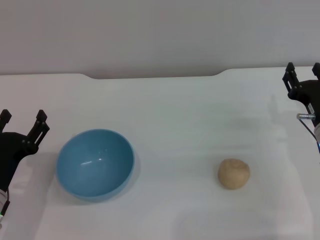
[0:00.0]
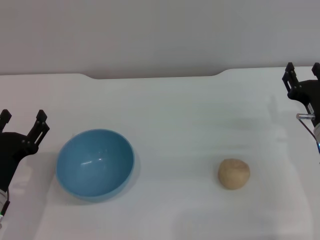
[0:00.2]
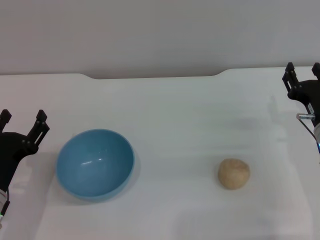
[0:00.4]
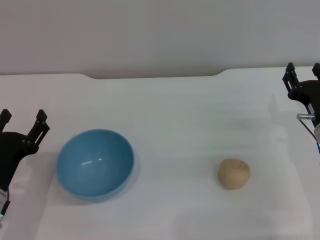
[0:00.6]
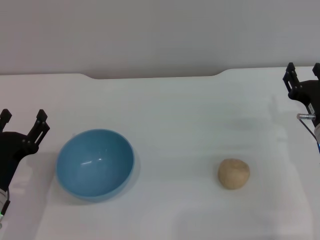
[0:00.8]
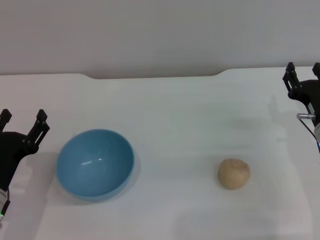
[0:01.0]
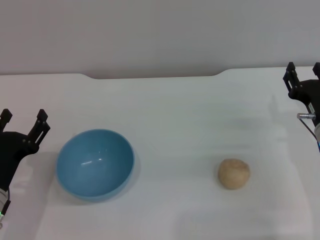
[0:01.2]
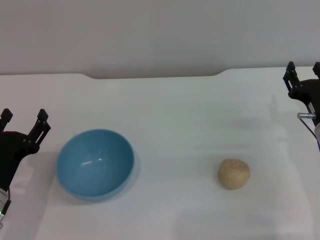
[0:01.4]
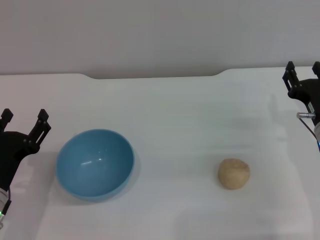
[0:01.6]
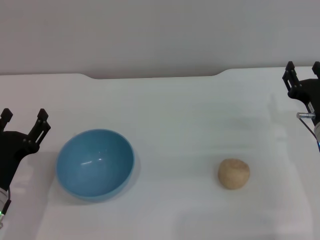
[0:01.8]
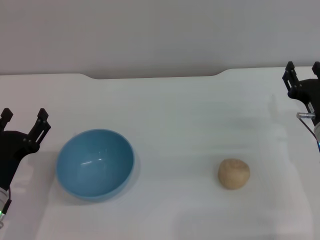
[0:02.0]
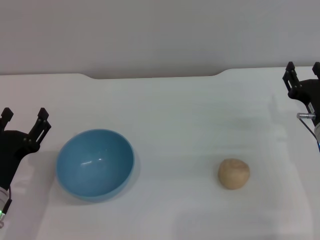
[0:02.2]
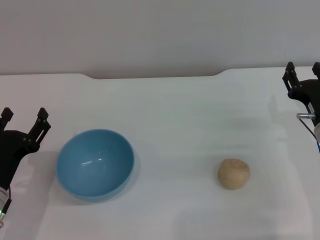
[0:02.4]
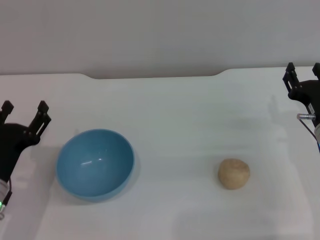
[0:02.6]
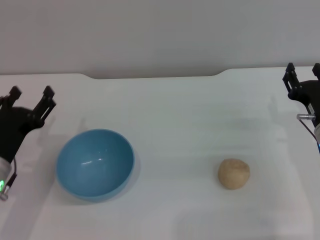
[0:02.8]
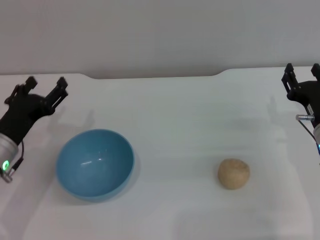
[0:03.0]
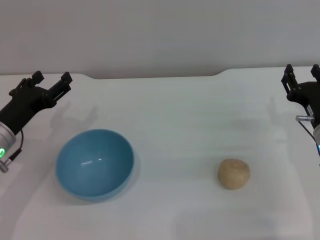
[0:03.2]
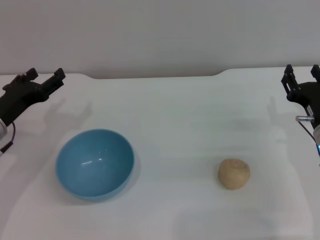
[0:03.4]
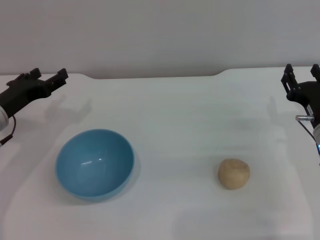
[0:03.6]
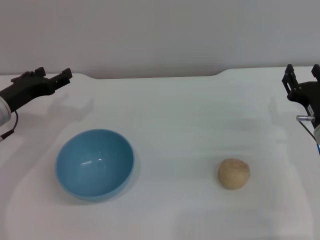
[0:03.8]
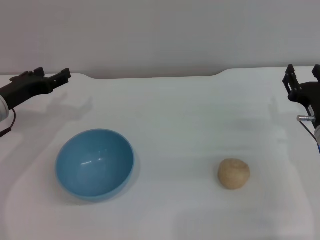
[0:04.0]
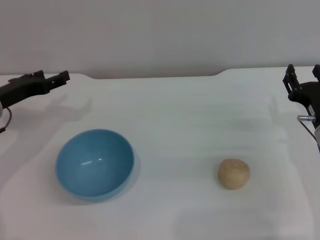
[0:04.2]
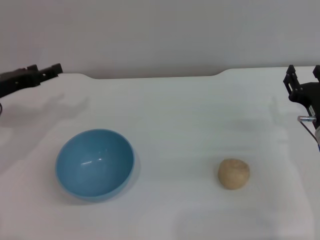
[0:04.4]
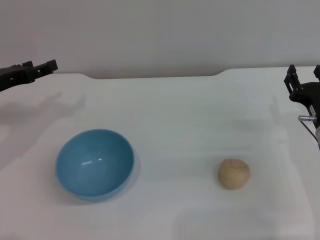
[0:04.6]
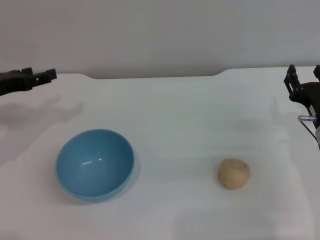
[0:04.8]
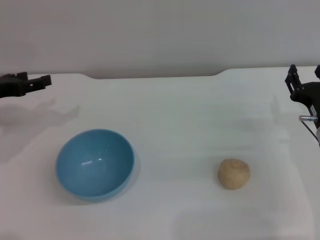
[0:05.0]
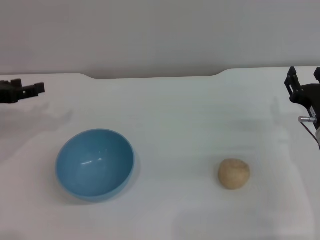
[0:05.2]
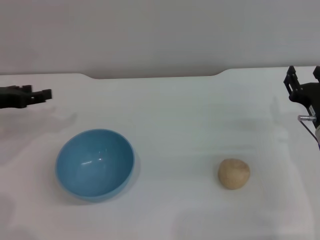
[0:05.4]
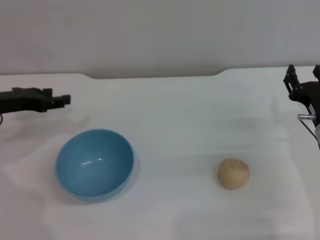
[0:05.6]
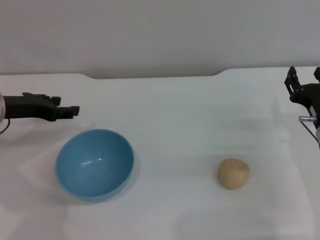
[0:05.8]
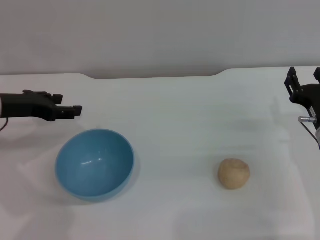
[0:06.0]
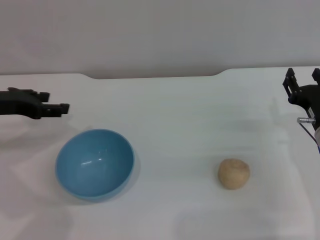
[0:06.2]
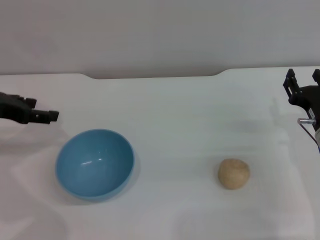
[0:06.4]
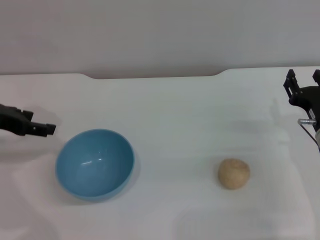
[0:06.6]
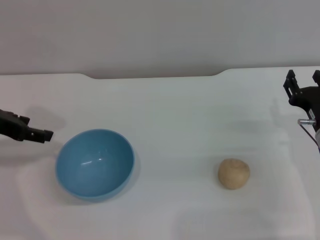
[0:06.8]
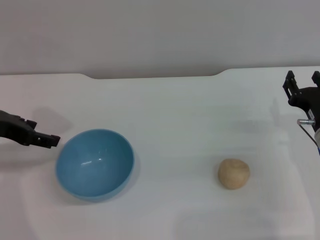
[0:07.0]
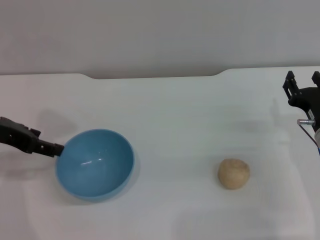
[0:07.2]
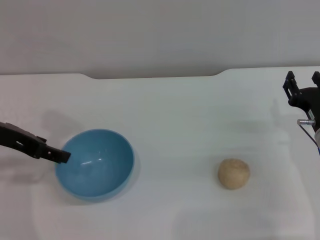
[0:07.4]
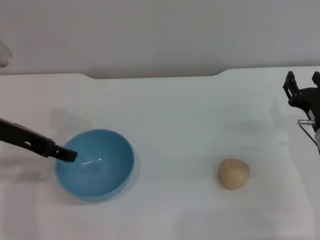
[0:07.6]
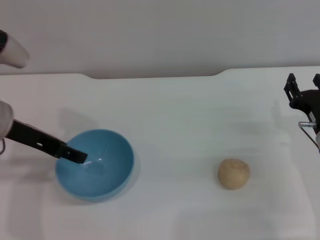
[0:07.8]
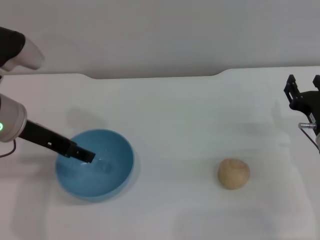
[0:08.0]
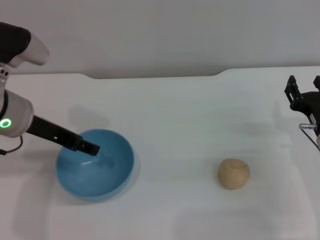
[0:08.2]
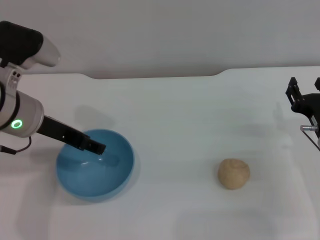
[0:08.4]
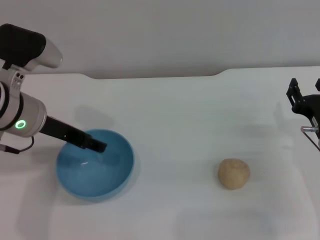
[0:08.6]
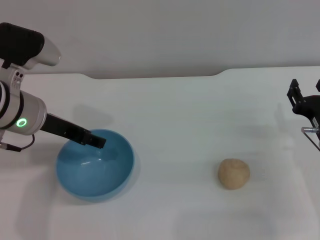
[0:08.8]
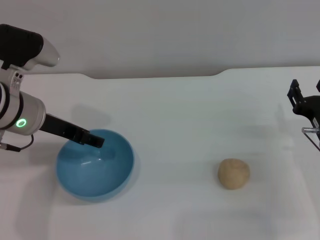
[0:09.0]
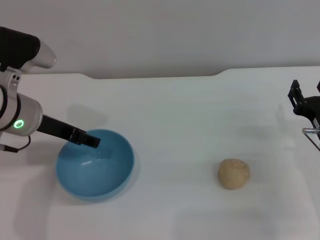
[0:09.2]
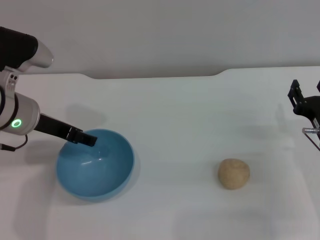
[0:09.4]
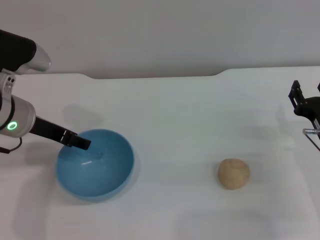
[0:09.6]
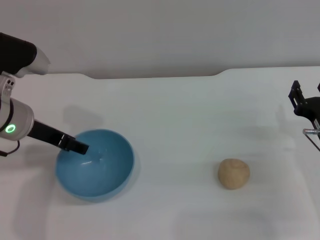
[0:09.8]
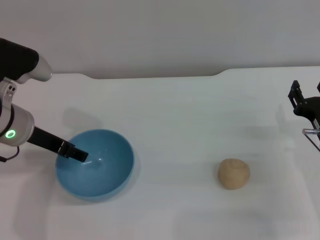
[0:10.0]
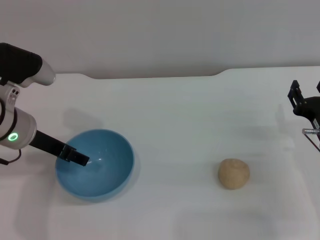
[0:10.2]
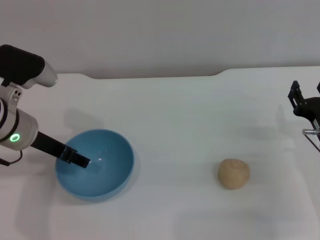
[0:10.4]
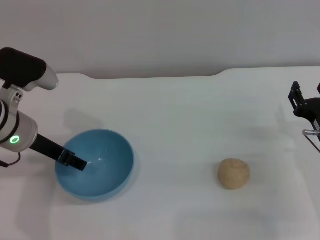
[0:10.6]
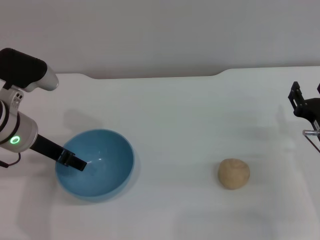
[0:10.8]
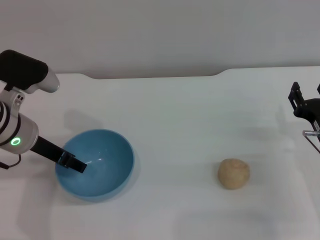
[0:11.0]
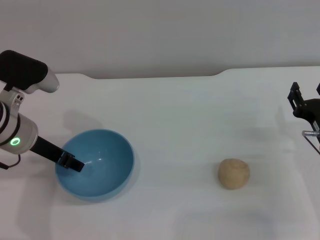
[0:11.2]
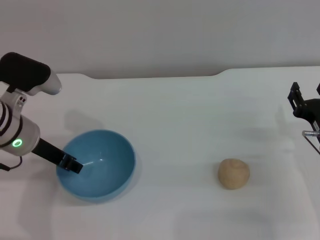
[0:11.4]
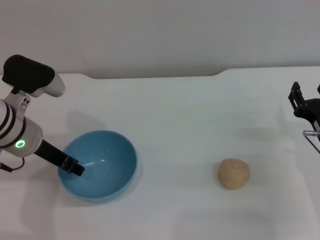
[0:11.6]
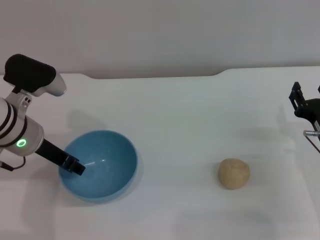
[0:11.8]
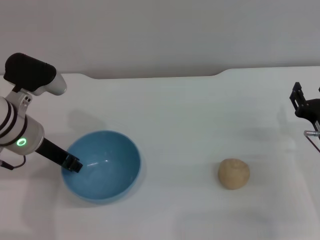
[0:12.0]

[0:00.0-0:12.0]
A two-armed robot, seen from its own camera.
Task of the whole recording: put the egg yolk pastry into the blue bowl and pour it out repeatedly.
0:00.0 to 0:01.6: Both grippers stay about where they are.
0:01.6 to 0:03.0: The left gripper is displaced forward by some 5 cm.
0:03.0 to 0:04.4: The left gripper heads forward, upward and to the left, covering roughly 10 cm.
0:06.0 to 0:07.6: The left gripper heads upward, covering approximately 5 cm.
0:07.6 to 0:09.0: The left gripper is displaced to the right by roughly 5 cm.
0:09.0 to 0:10.4: The grippers make only small movements.
0:10.4 to 0:12.0: The left gripper closes its fingers.

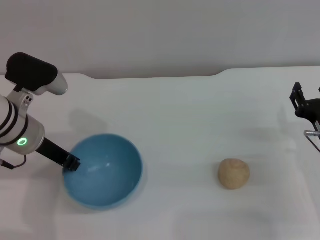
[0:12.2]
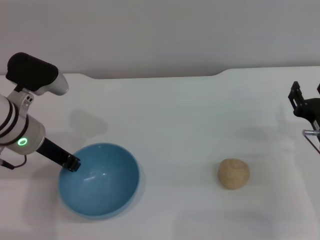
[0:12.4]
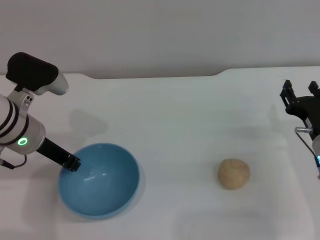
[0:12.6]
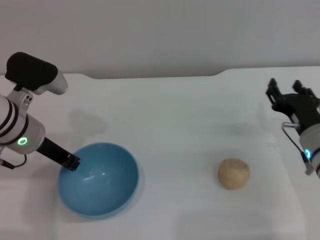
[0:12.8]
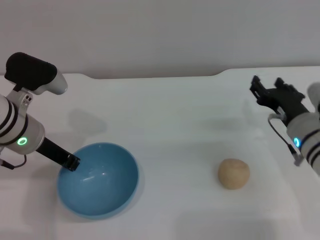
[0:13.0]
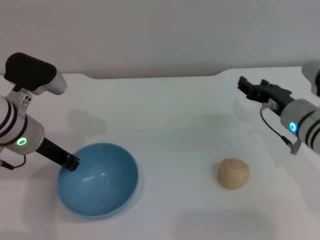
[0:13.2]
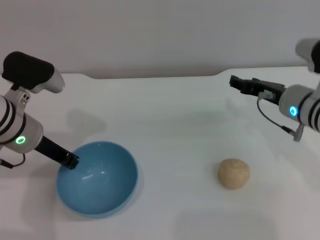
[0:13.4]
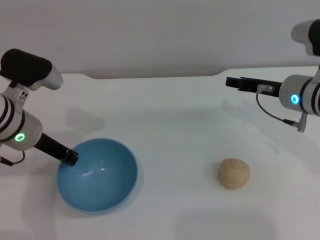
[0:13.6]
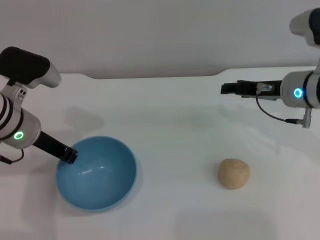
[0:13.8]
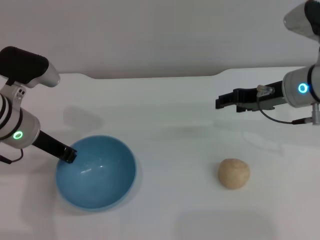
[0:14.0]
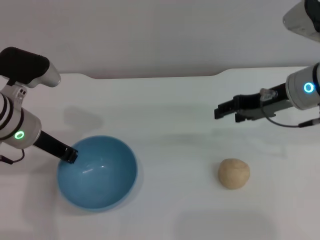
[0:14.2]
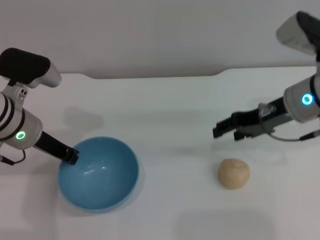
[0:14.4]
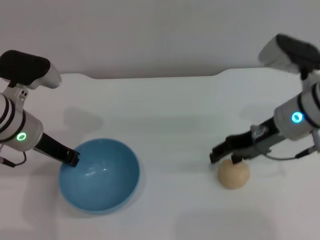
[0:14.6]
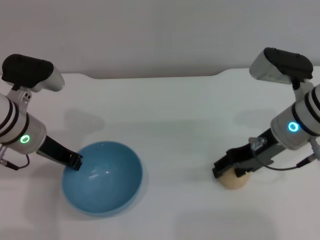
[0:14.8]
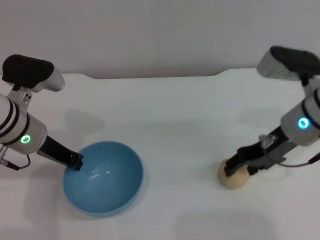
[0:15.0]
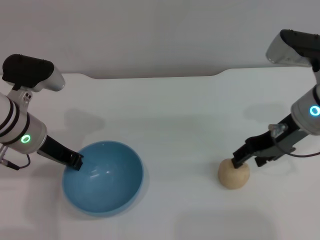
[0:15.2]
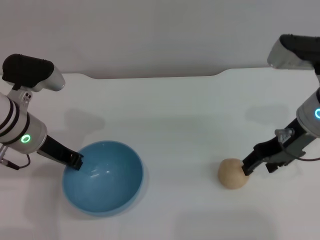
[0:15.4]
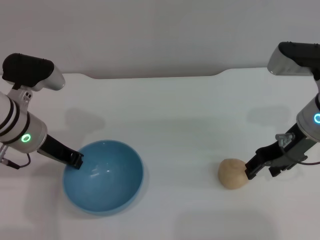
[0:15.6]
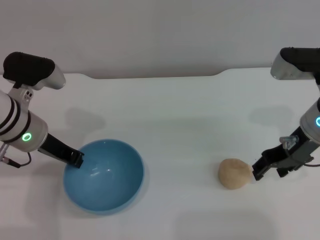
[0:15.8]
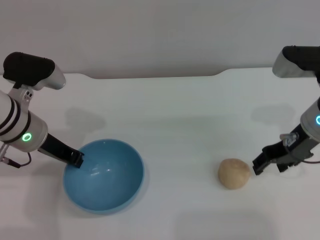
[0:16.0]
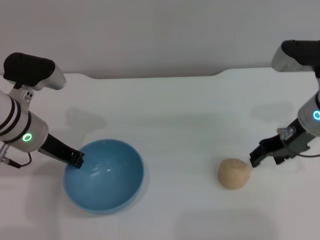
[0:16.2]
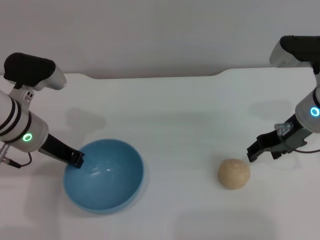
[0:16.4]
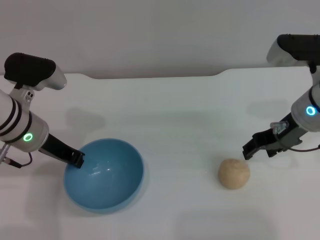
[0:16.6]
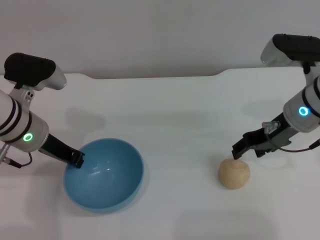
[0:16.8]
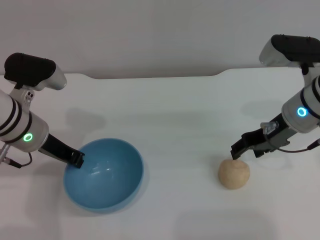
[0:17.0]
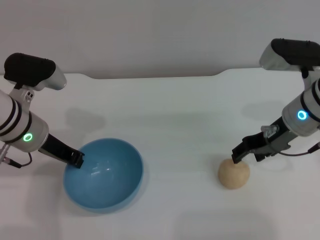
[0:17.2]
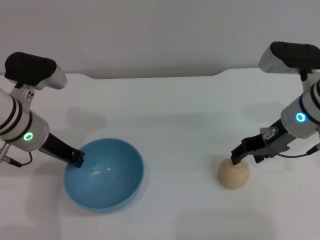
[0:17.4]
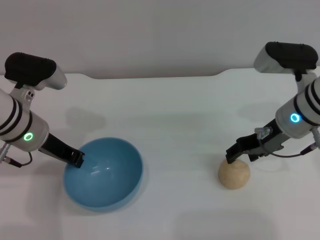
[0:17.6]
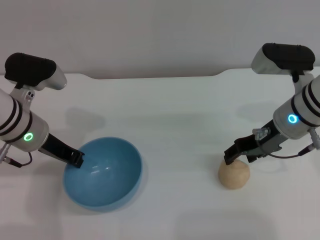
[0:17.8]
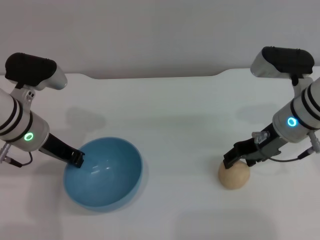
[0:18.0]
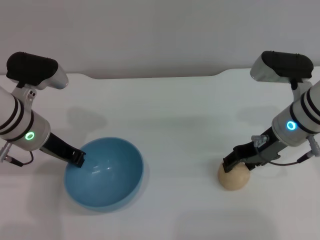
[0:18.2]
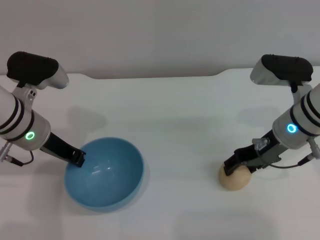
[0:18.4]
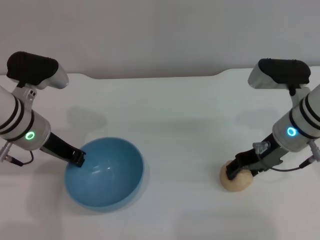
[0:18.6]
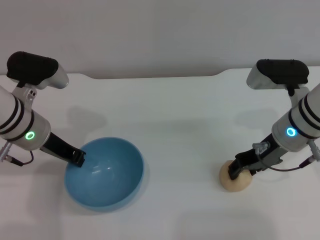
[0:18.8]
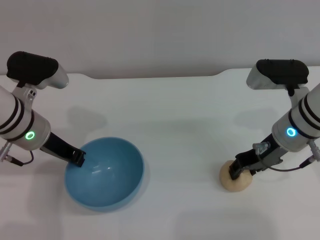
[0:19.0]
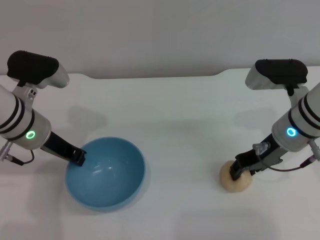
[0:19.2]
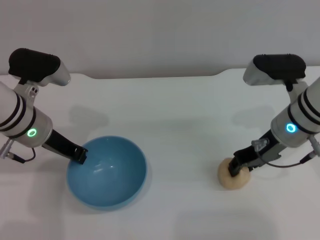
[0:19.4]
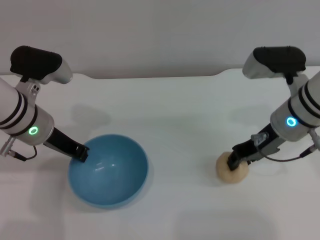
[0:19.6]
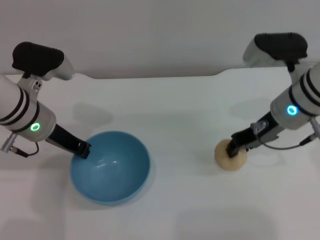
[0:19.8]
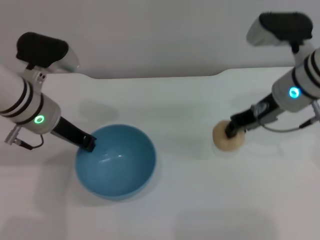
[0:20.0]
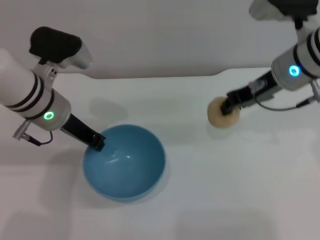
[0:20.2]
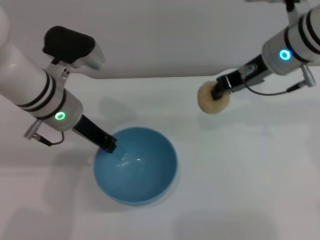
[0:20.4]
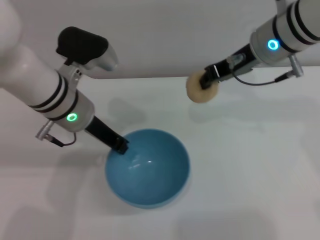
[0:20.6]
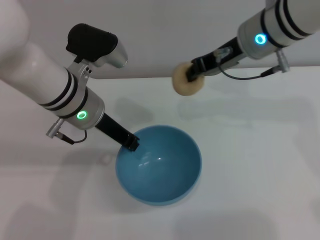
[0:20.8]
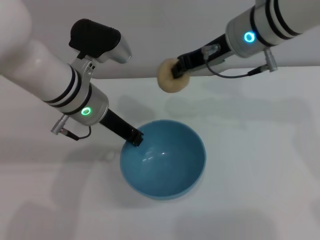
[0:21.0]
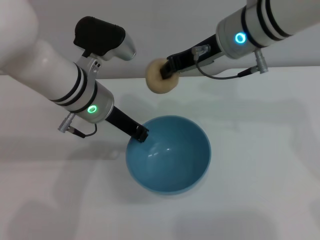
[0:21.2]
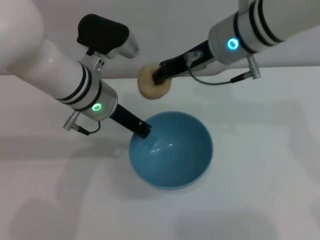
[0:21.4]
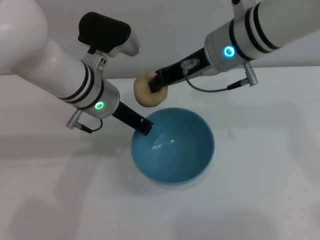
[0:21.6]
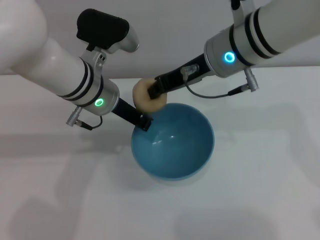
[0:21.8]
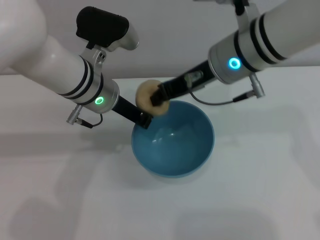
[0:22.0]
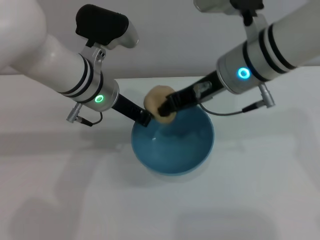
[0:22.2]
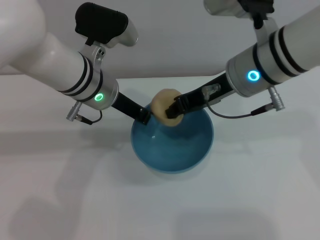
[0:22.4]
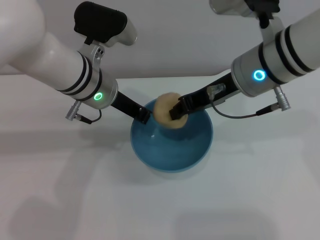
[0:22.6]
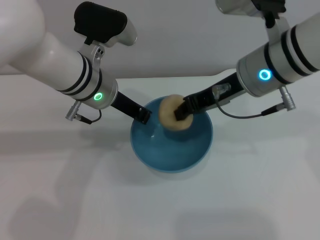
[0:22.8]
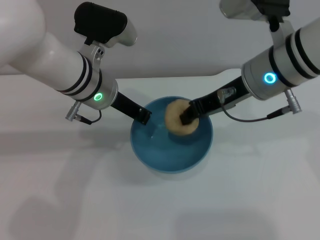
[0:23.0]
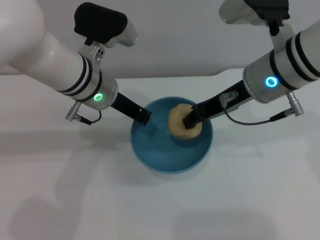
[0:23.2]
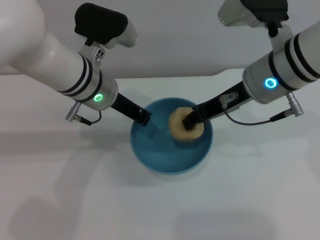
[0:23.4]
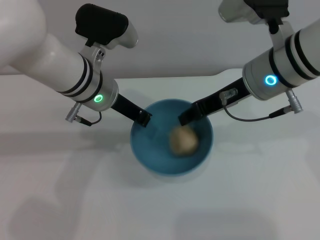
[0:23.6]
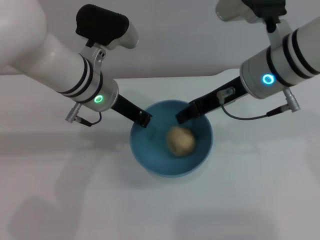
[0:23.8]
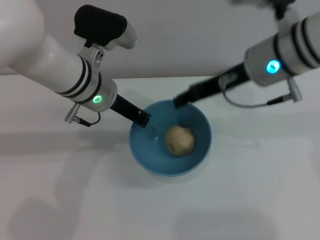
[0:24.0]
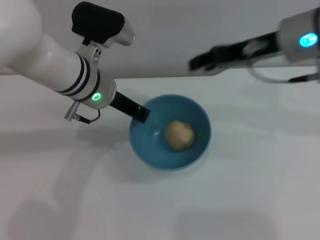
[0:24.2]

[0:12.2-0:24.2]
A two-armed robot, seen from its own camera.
Task of the whole recording: put the egg yolk pastry into the blue bowl and pour it out repeatedly.
Step, 0:15.2 to 0:20.0: Pick up the egg yolk pastry with the right gripper.
Step, 0:20.2 to 0:24.0: Place the egg yolk pastry into the bowl.
0:12.2 to 0:13.8: The left gripper closes its fingers. Meanwhile the right gripper is displaced upward, forward and to the left by roughly 15 cm.
0:15.2 to 0:18.2: The grippers make only small movements.
0:18.2 to 0:19.8: The right gripper closes its fingers.
0:19.8 to 0:21.2: The right gripper moves to the left and upward, some 10 cm, while the left gripper shifts some 10 cm to the right.
0:22.6 to 0:24.2: The right gripper travels to the right by about 5 cm, and opens its fingers.
